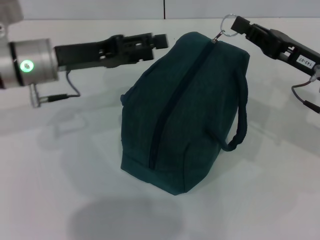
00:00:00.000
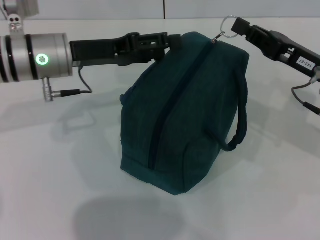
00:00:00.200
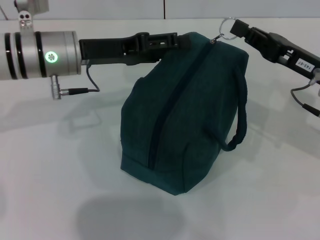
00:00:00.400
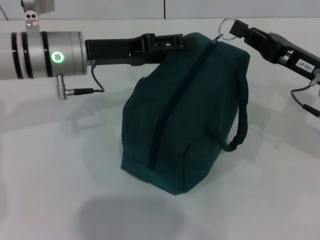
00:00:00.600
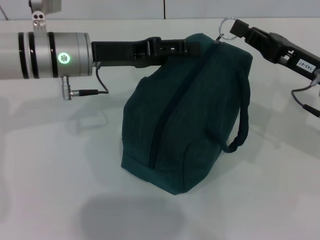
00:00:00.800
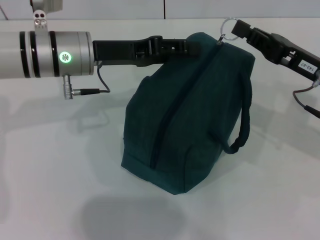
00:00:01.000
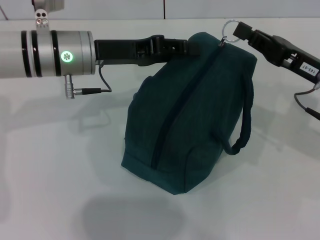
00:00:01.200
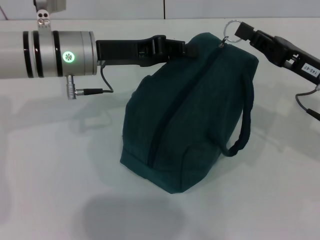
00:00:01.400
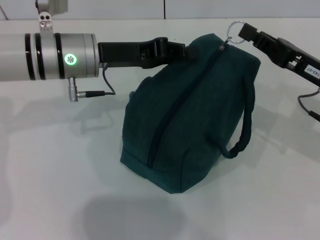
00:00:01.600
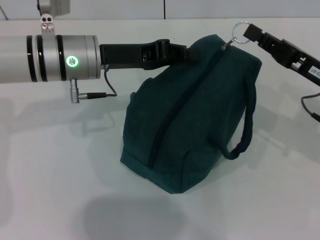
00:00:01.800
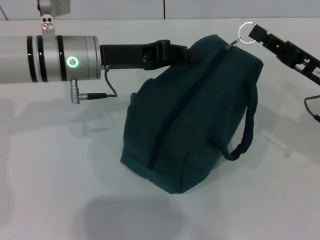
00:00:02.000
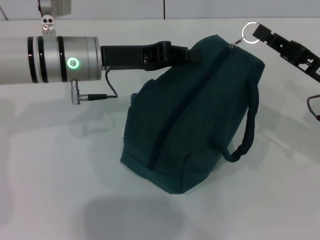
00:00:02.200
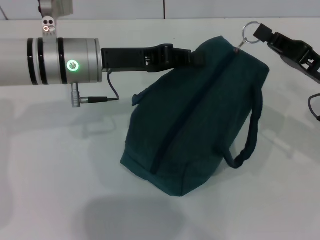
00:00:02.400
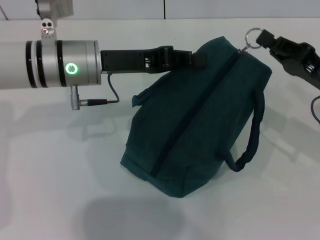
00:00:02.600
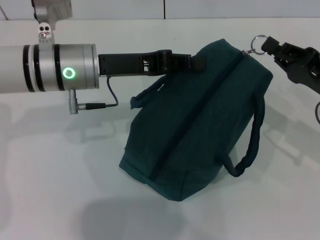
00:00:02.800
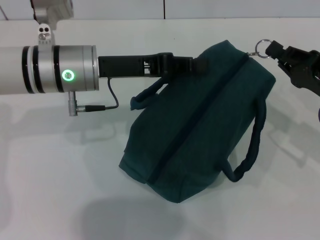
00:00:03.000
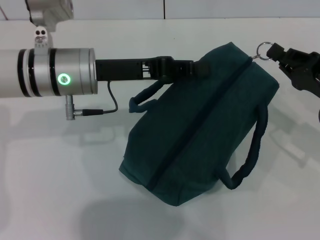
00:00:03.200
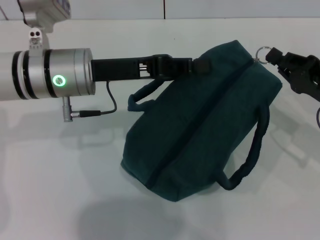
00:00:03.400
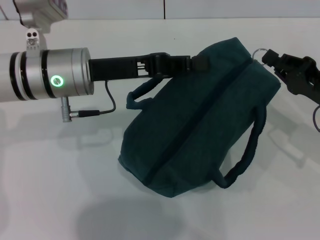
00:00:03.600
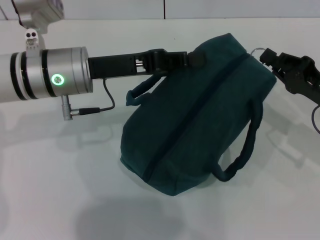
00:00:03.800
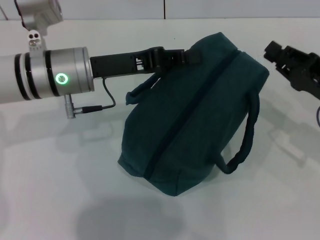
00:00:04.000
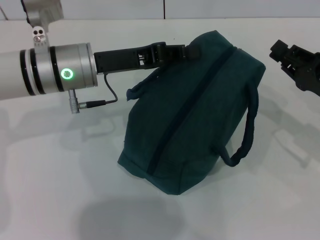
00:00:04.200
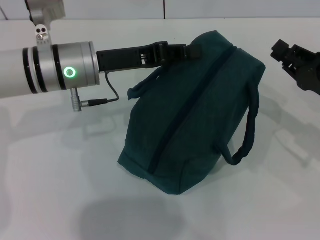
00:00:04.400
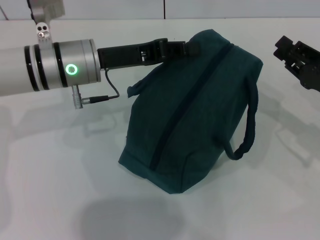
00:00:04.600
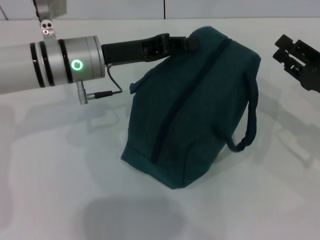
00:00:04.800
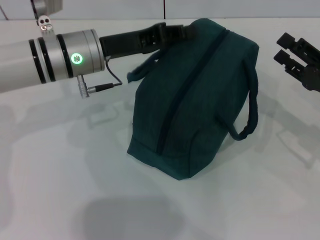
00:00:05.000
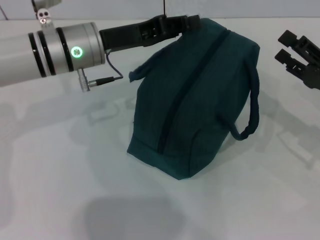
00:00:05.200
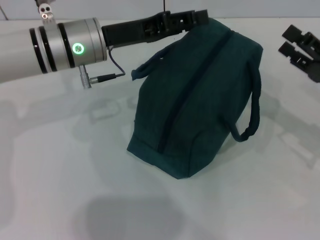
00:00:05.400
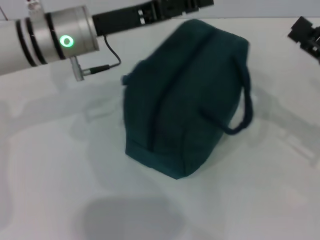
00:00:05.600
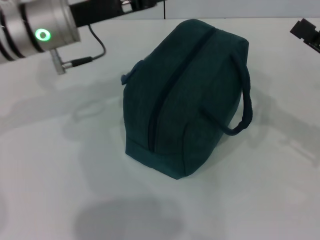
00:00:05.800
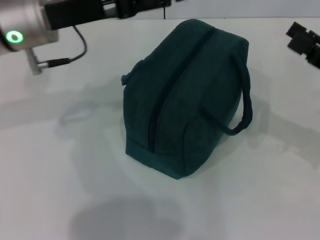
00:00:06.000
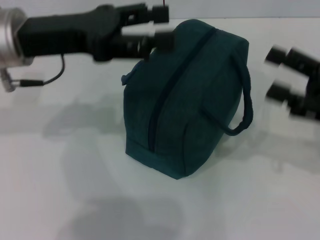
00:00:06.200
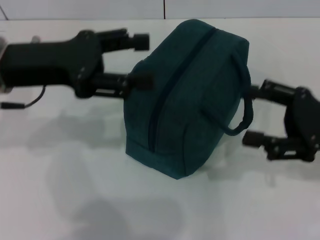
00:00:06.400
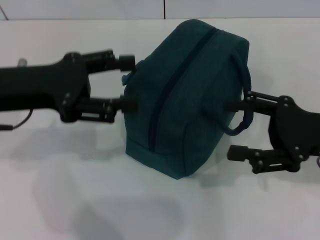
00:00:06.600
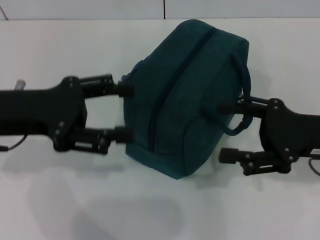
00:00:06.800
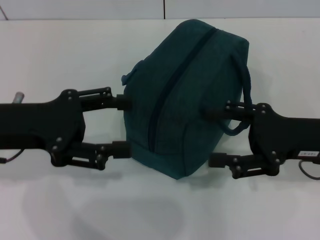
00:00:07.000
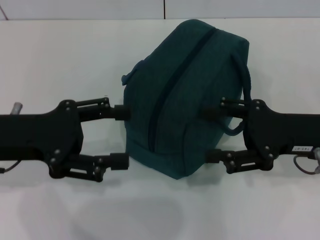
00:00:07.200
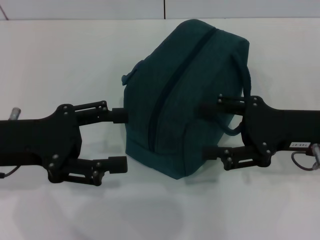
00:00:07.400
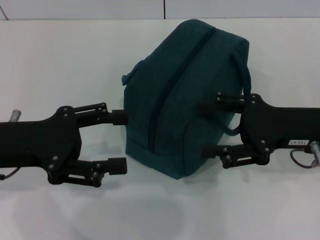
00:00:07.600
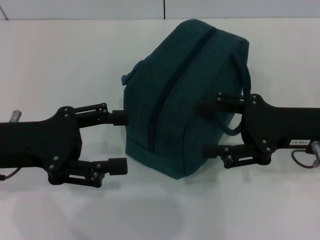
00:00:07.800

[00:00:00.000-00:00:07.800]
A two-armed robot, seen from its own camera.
Step, 00:00:00.000 to 00:00:04.000: Zip up the lunch bag with your right hand.
Step, 00:00:04.400 to 00:00:05.400: Hold the lunch bag with your left hand.
00:00:00.000 to 00:00:01.600: The left gripper travels to the right by about 5 cm, and closes.
00:00:04.600 to 00:00:06.200: The left gripper moves upward and to the left, some 10 cm, and opens up, while the right gripper heads upward, covering about 5 cm, and opens up.
00:00:06.200 to 00:00:07.800: The left gripper moves backward and downward, some 10 cm. Meanwhile the right gripper moves to the left, some 5 cm.
